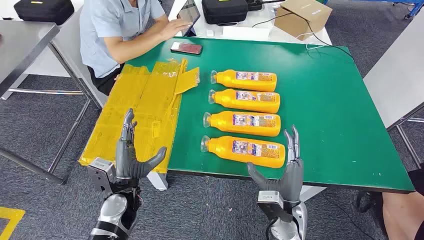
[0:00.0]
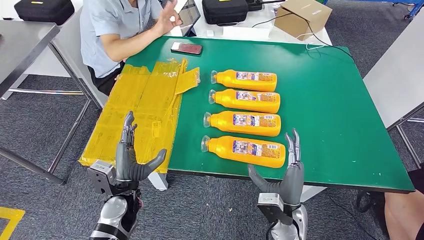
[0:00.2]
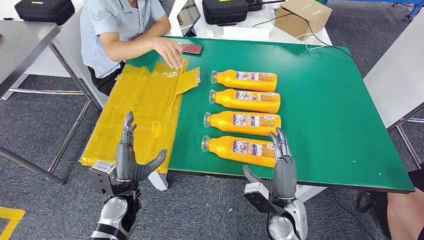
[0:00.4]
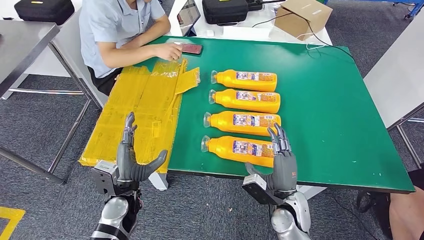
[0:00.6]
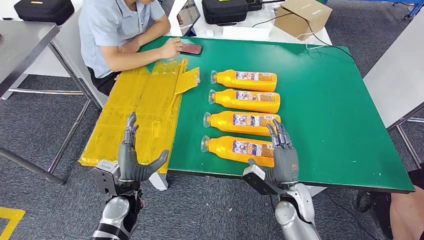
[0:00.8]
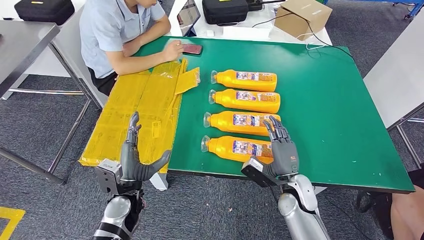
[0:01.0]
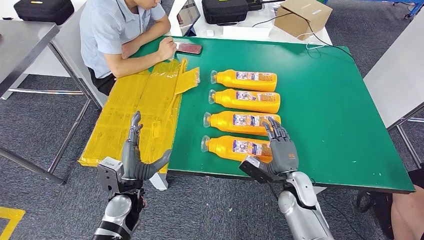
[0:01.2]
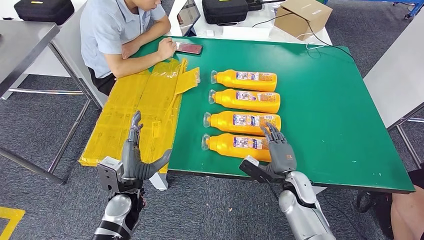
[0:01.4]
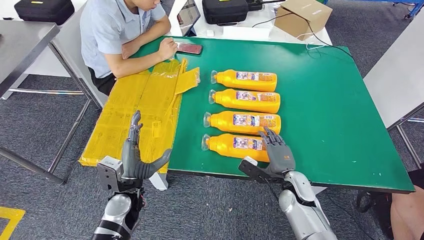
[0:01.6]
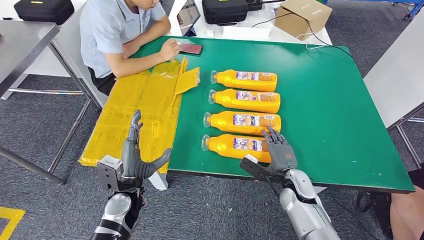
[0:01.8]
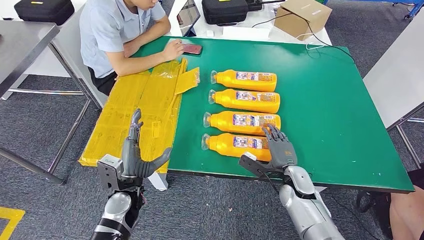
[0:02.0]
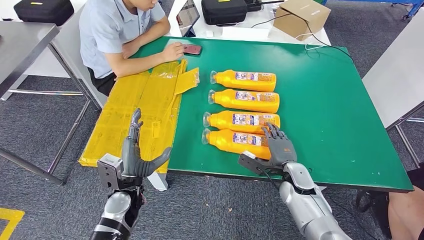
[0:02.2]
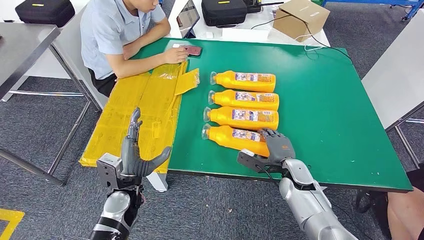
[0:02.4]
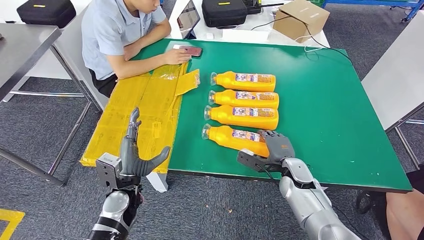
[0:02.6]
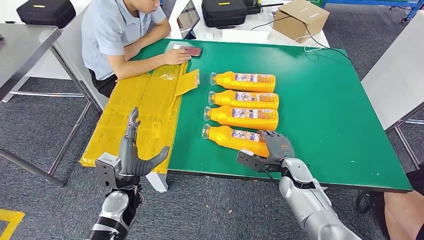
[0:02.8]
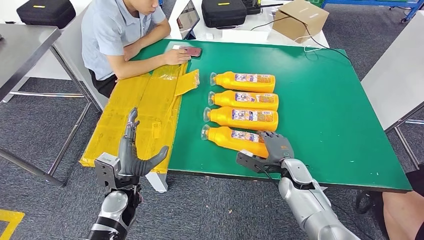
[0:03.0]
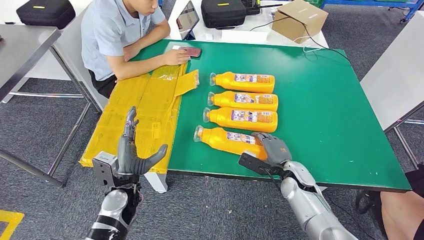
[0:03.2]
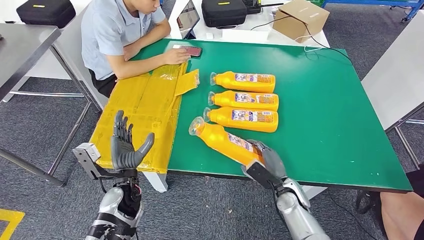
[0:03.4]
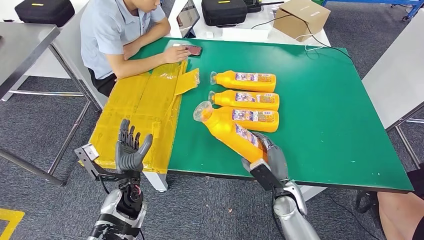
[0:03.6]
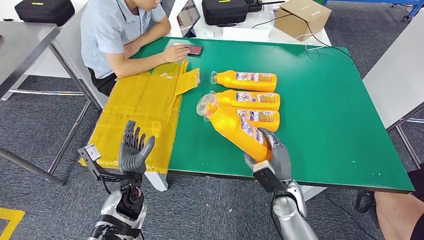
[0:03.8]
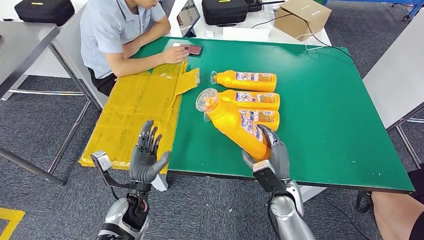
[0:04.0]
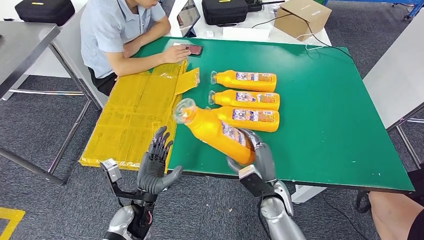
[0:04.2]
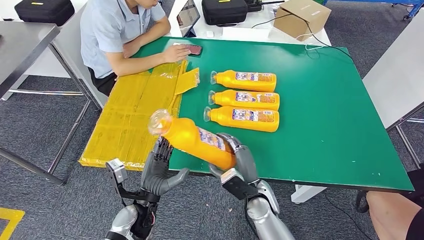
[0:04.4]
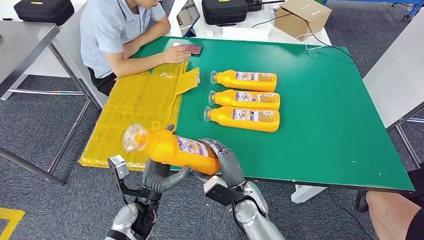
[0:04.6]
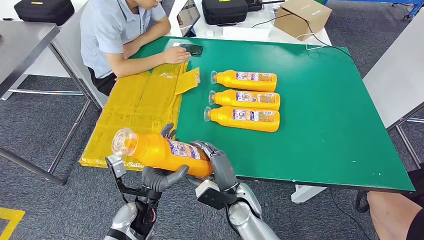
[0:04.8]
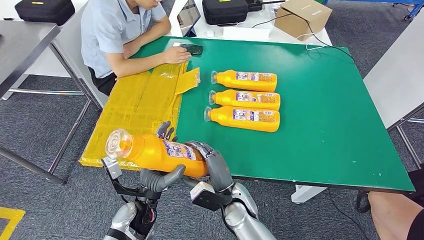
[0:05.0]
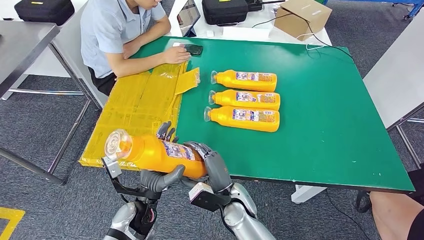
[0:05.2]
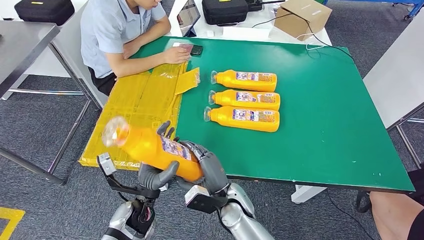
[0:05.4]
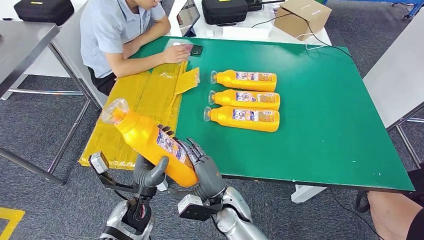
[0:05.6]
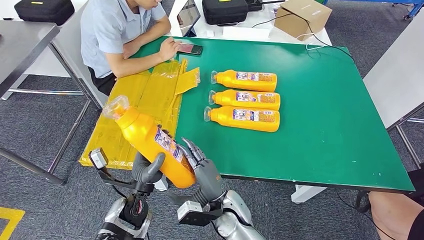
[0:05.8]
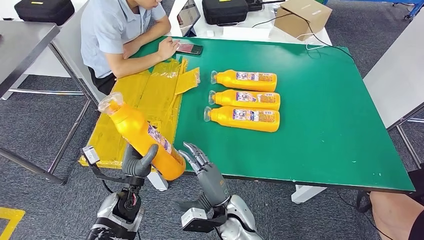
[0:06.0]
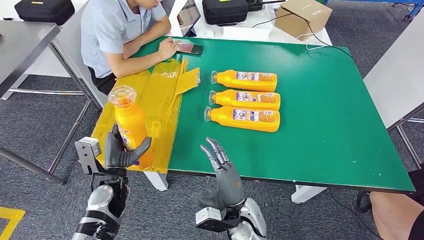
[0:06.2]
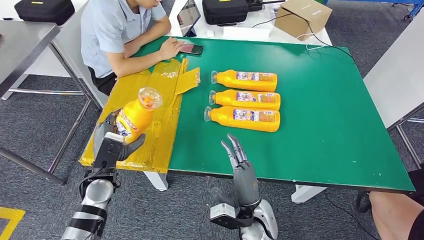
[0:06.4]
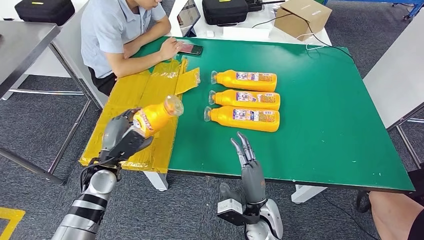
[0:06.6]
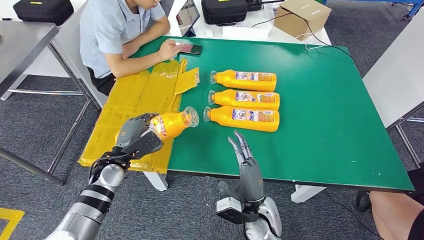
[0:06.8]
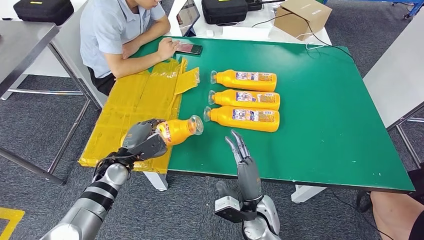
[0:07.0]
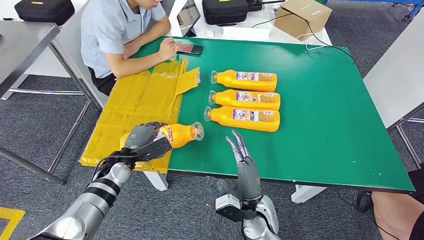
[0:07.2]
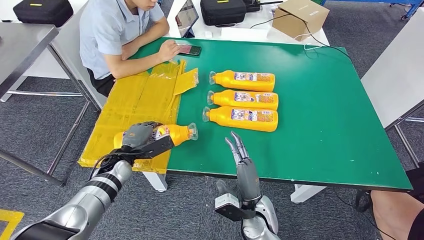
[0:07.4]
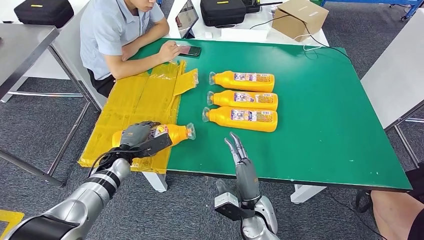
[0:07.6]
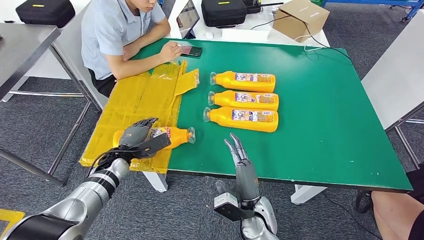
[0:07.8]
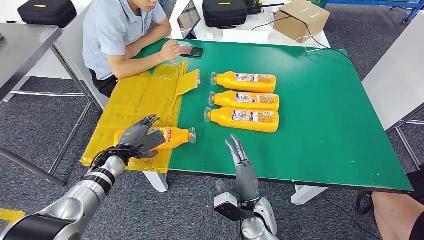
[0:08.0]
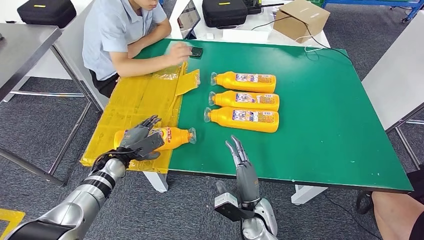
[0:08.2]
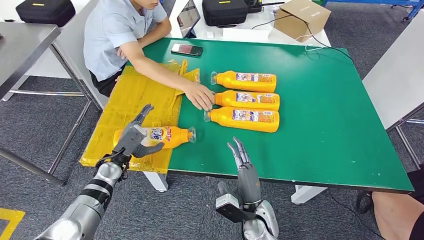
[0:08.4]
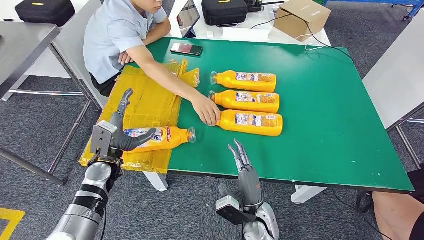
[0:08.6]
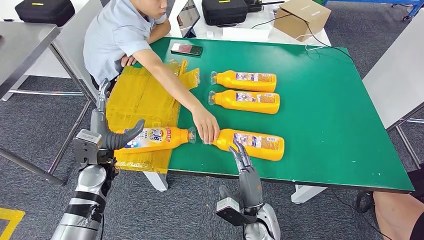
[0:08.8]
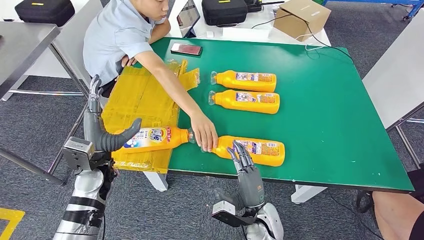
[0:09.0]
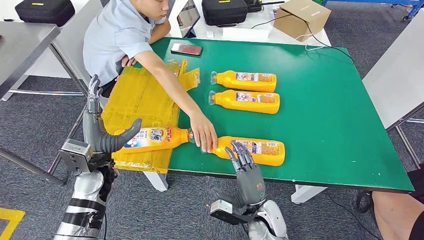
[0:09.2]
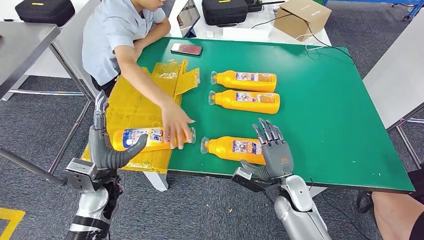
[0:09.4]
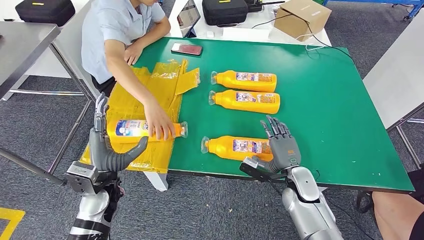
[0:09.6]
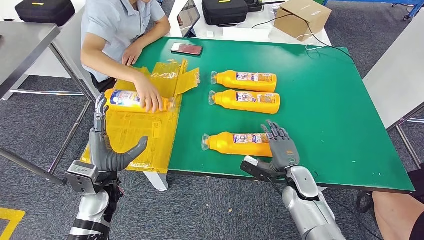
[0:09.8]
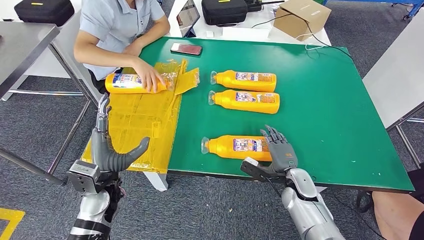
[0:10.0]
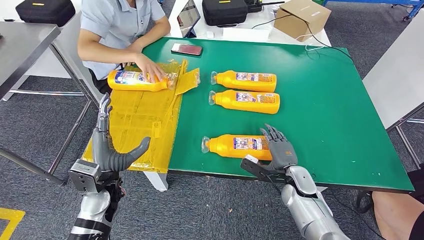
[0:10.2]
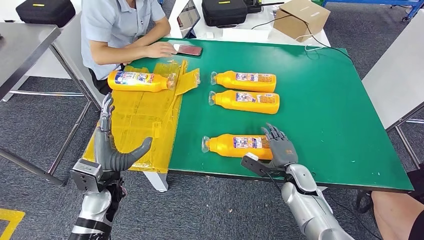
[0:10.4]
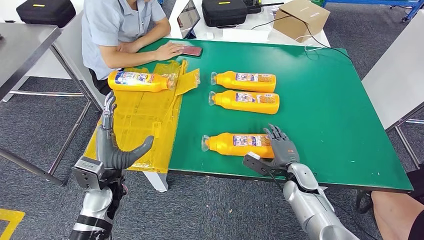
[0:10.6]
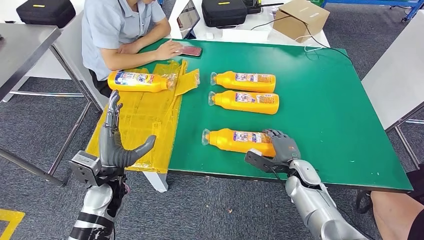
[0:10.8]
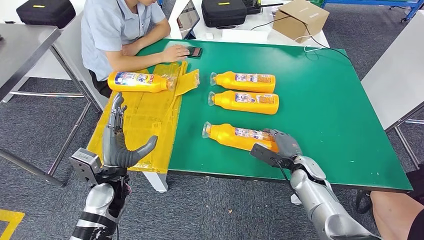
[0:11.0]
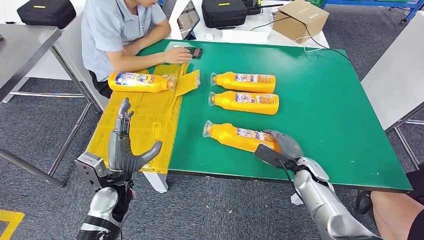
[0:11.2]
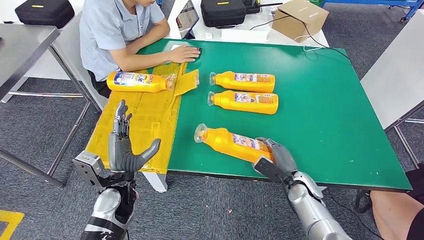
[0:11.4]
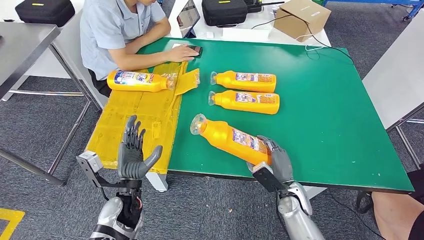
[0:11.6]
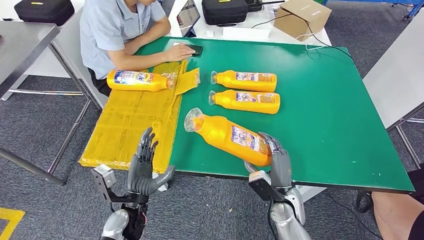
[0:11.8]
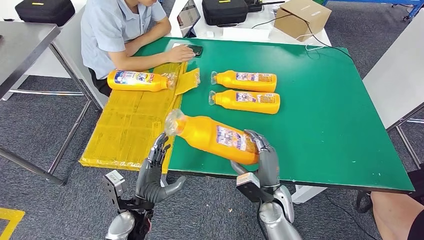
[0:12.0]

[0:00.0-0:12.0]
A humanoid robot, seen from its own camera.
Step, 0:00.0 to 0:04.8: Take the fast-moving consumer goods bottle from the table.
Step, 0:05.0 to 0:09.4: Flip the fast-moving consumer goods bottle to the front side.
0:04.4 to 0:06.0: The left hand shifts by roughly 5 cm; the right hand moves to the left, about 5 cm.

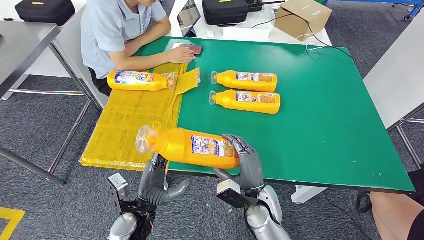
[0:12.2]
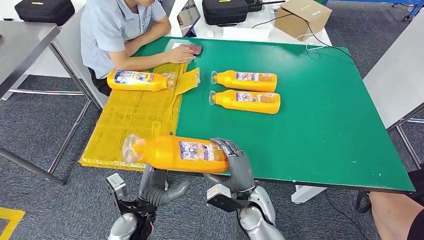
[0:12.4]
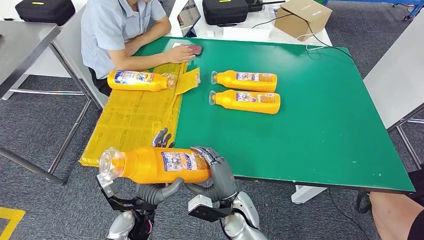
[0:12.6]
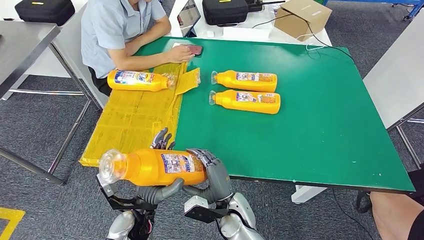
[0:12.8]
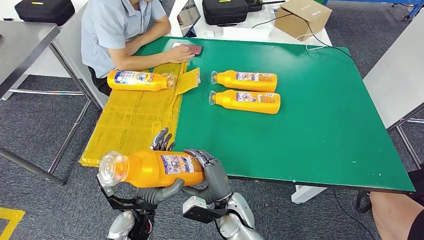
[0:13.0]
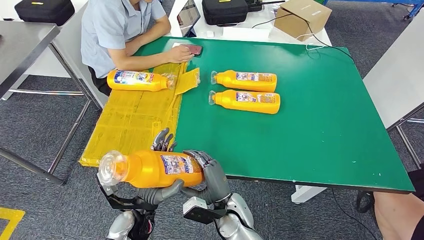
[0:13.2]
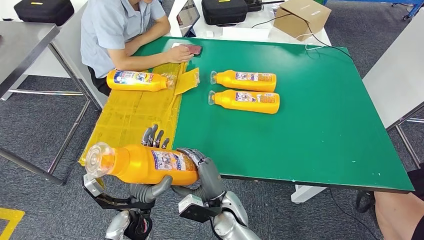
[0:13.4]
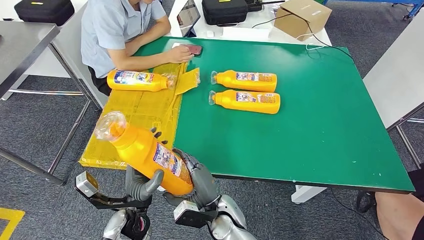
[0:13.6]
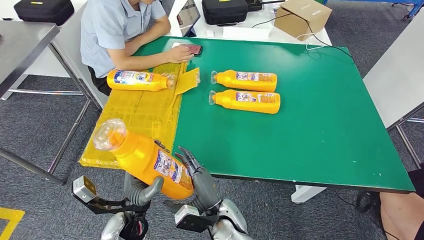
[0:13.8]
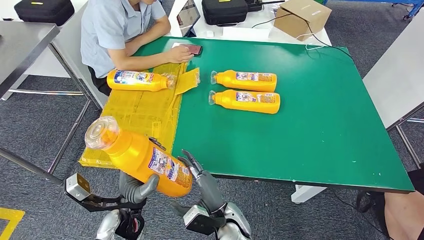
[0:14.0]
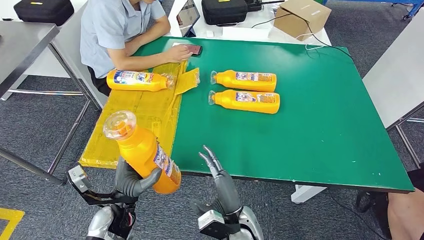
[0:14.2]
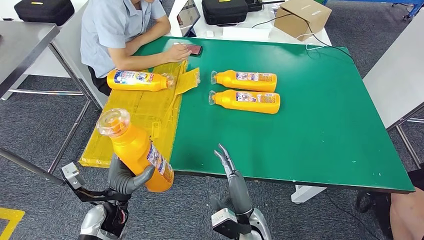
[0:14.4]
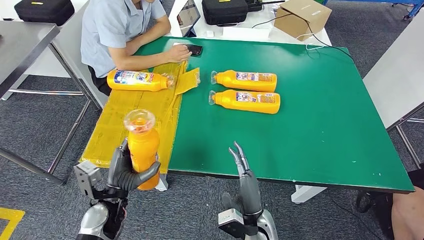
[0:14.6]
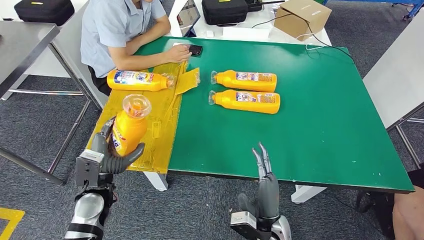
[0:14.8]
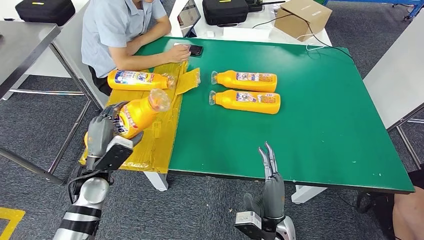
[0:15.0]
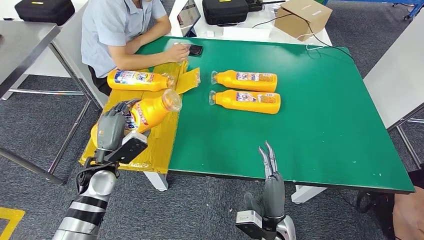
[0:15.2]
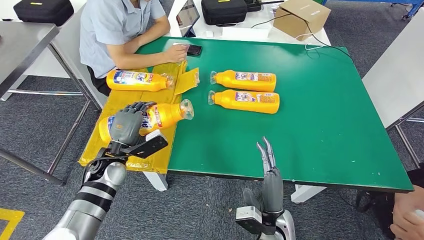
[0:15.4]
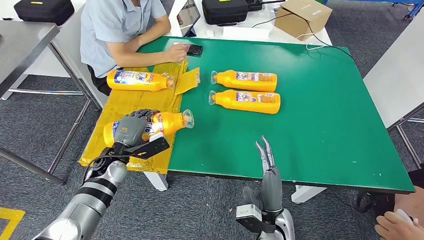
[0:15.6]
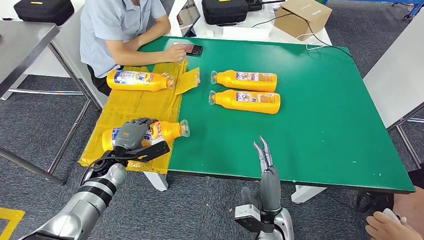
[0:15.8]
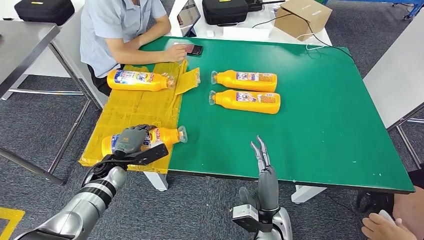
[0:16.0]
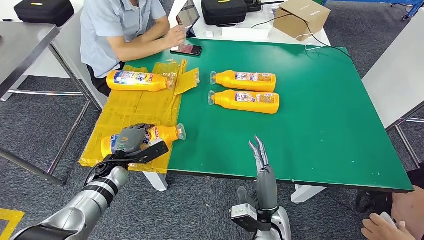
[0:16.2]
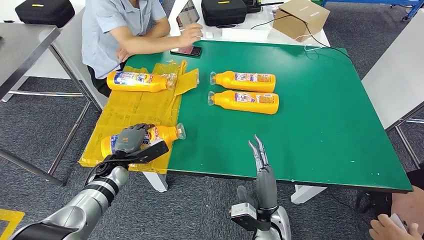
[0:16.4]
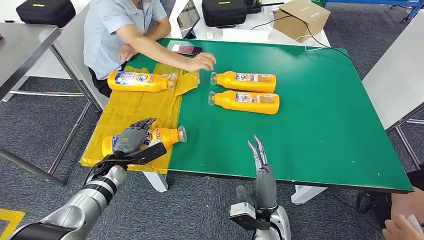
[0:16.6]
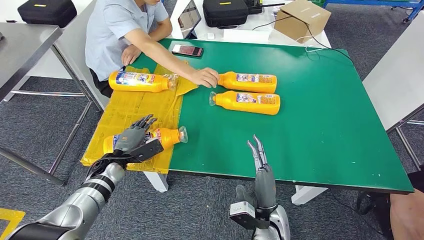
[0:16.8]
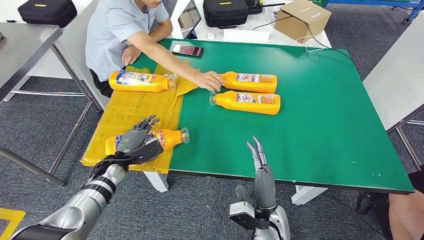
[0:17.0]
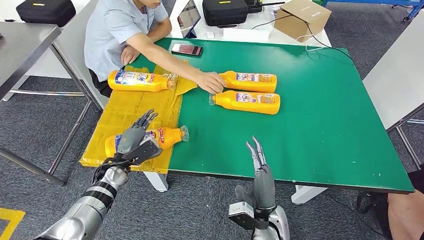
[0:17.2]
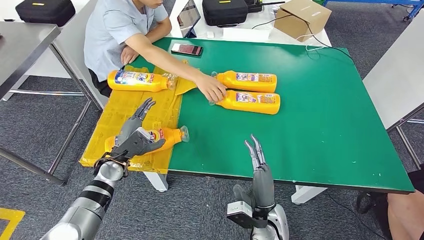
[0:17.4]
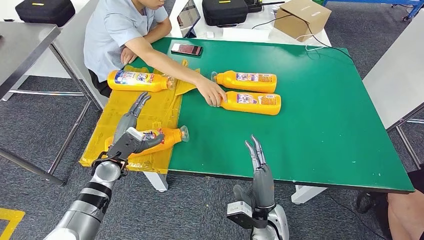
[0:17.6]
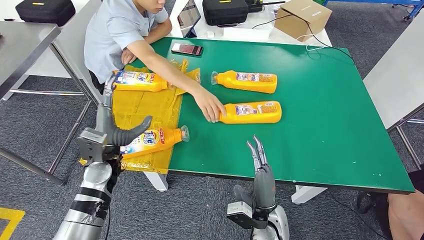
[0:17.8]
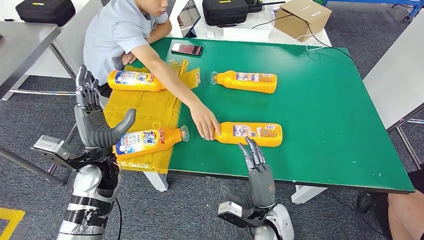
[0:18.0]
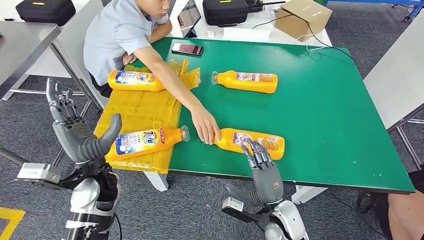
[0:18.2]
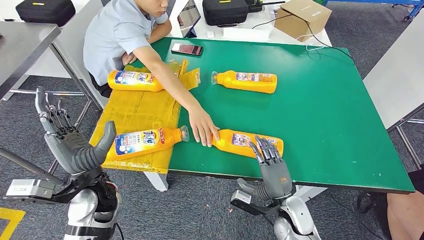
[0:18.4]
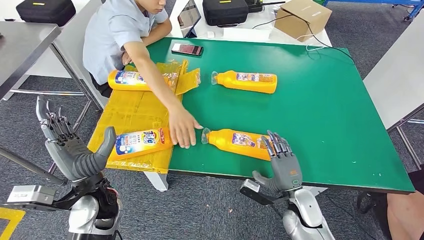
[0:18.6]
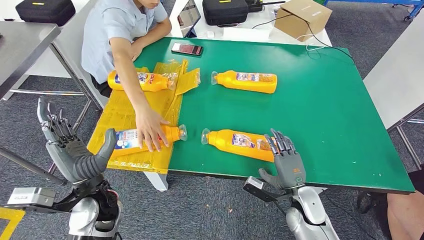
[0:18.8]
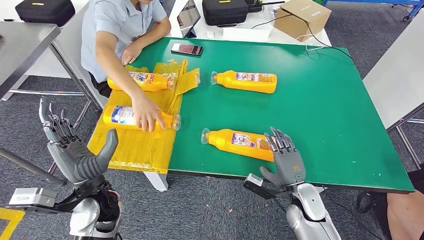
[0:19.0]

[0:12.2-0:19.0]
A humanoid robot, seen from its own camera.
Step, 0:13.2 to 0:17.8: Flip the fast-moving consumer goods bottle to the front side.
0:12.2 to 0:13.6: The right hand goes about 10 cm to the left.
0:13.6 to 0:15.0: The left hand shifts roughly 15 cm to the left, forward and upward. Meanwhile the right hand is displaced to the right by approximately 10 cm.
0:15.0 to 0:16.2: The left hand travels downward and forward by roughly 10 cm.
0:16.2 to 0:17.6: The left hand shifts some 5 cm upward.
